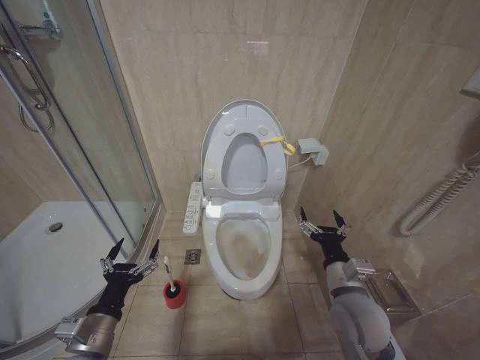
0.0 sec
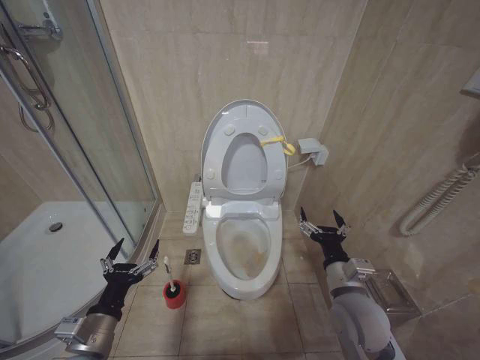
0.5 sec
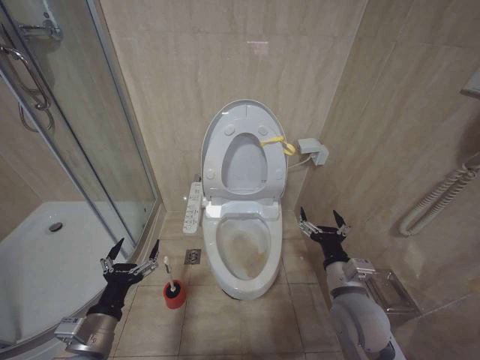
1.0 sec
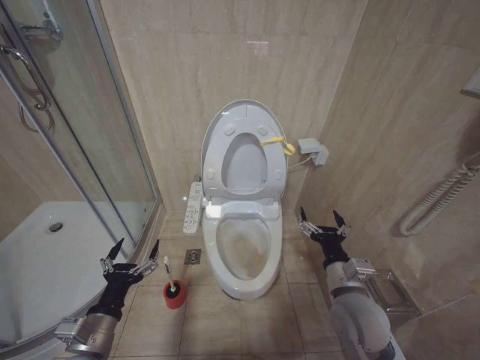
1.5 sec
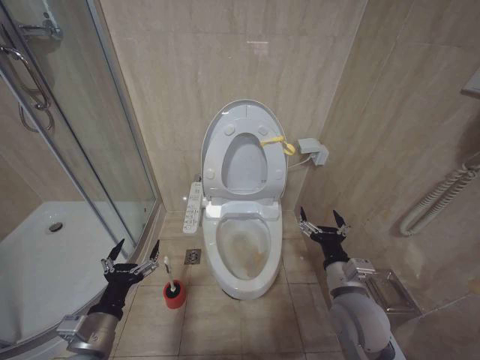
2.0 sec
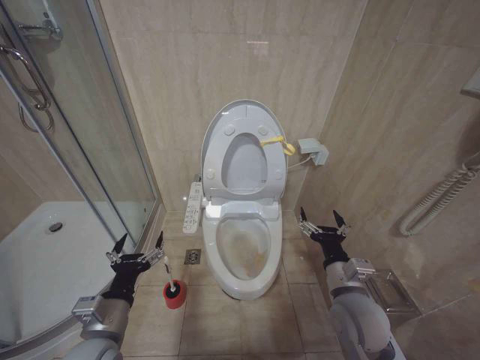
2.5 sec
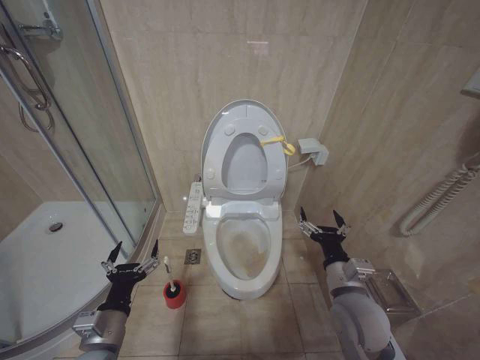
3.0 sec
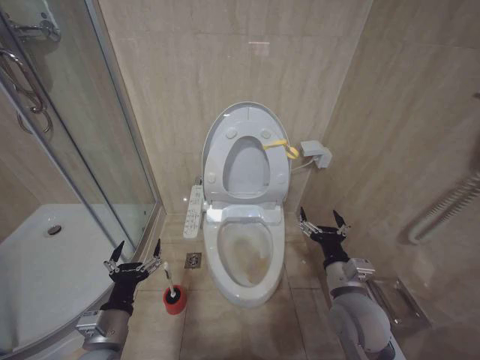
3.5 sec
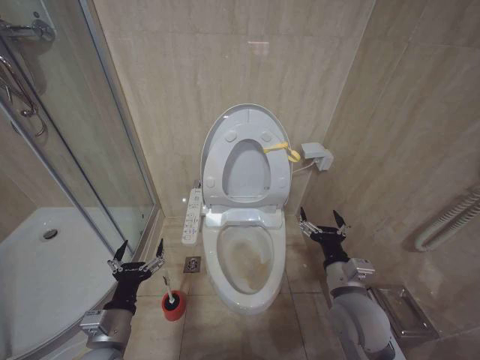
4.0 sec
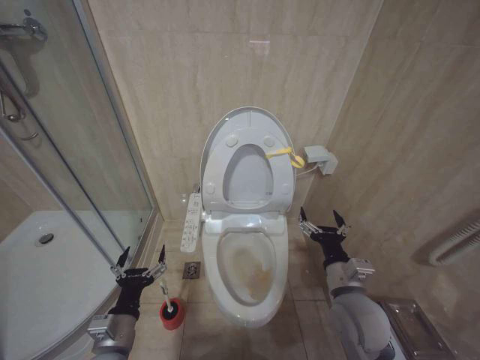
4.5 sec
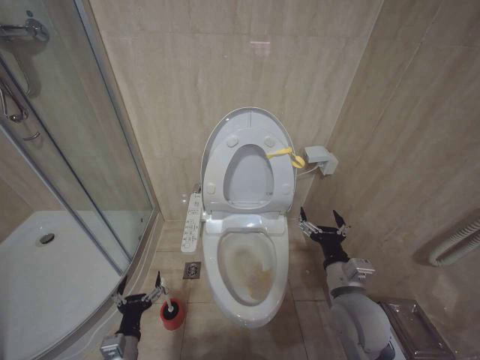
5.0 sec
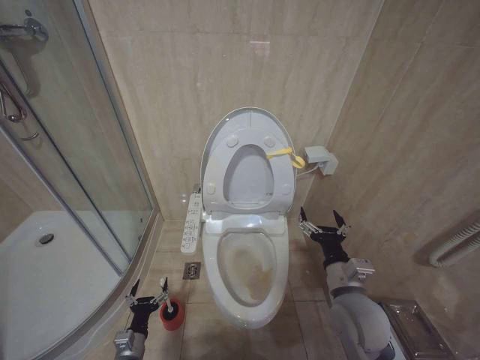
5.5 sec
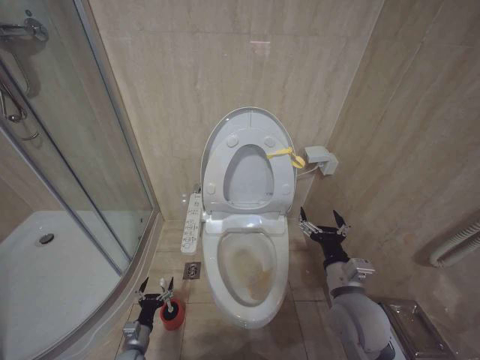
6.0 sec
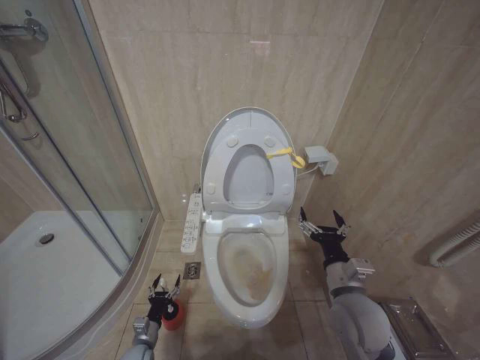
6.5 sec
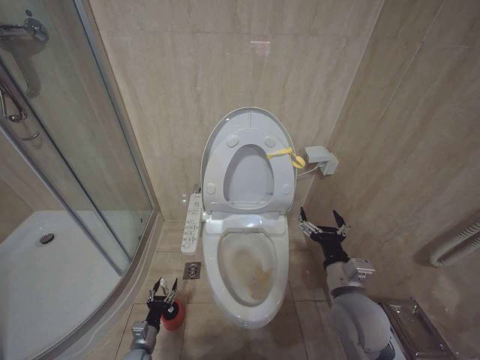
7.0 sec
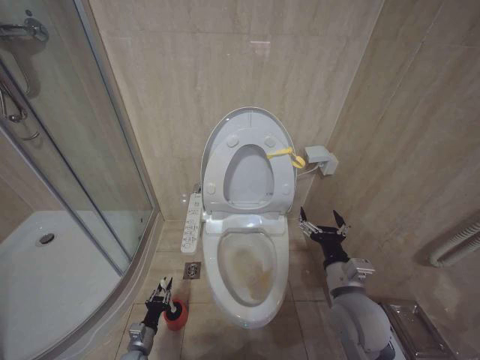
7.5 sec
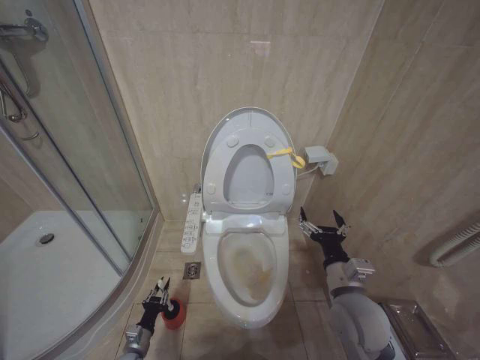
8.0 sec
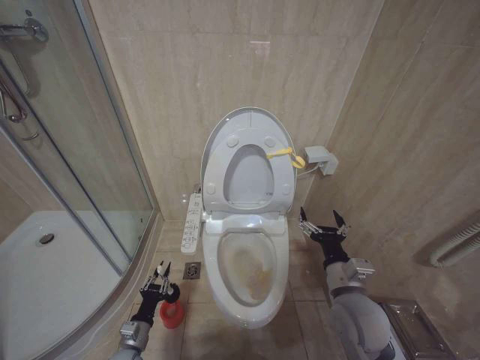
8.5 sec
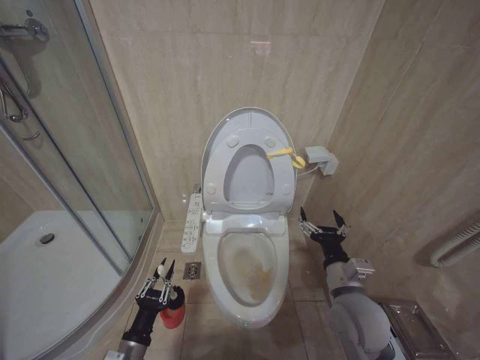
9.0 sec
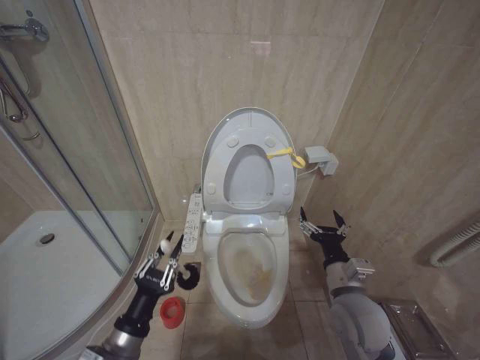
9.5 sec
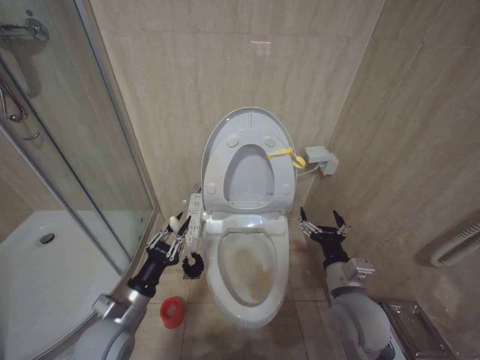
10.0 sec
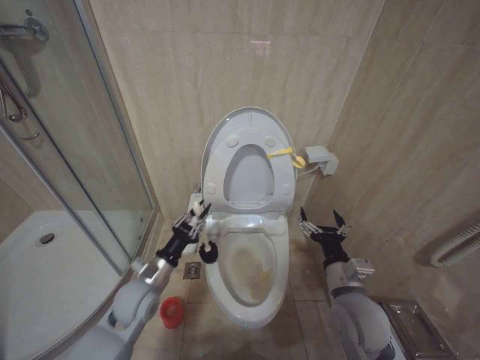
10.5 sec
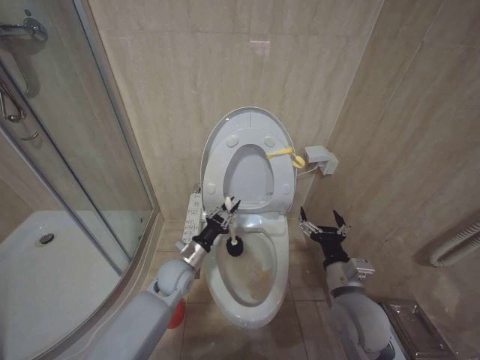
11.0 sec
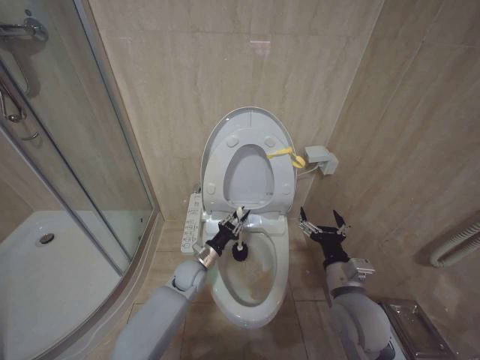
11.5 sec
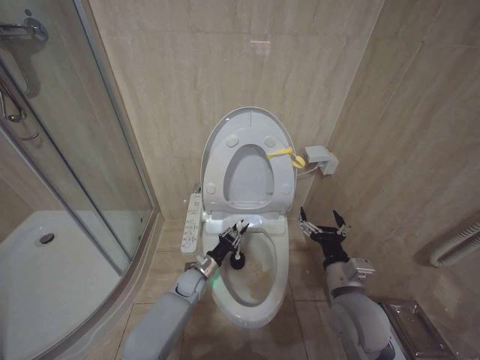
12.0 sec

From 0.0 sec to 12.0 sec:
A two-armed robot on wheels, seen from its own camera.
Task of the whole recording: Open the toilet lid, clean the toilet bowl with a toilet brush, close the toilet lid, and flush.
From 0.0 sec to 2.0 sec: Both grippers stay about where they are.
From 2.0 sec to 4.0 sec: The grippers stay close to where they were, moving slightly.
From 4.0 sec to 6.0 sec: The left gripper travels downward by about 25 cm.
From 8.0 sec to 10.0 sec: The left gripper travels upward by about 30 cm.
From 10.0 sec to 12.0 sec: The left gripper moves forward, downward and to the right, some 30 cm.

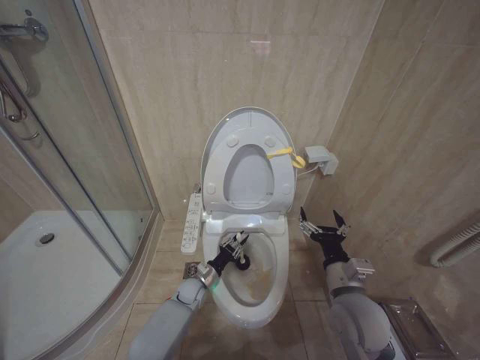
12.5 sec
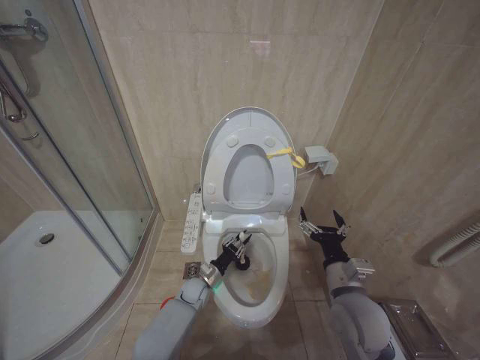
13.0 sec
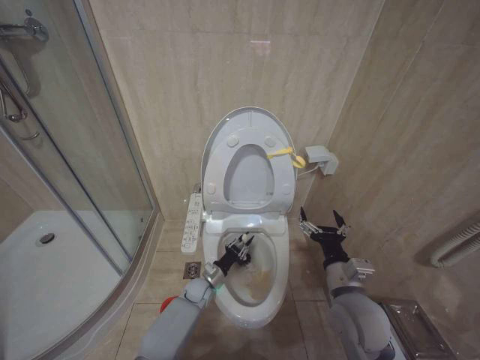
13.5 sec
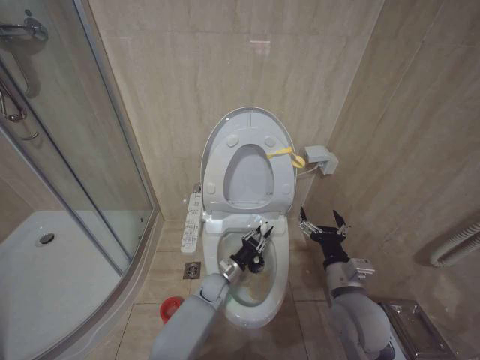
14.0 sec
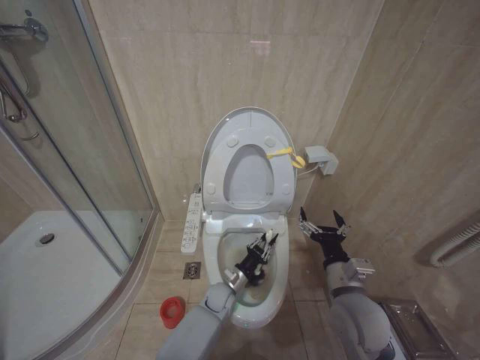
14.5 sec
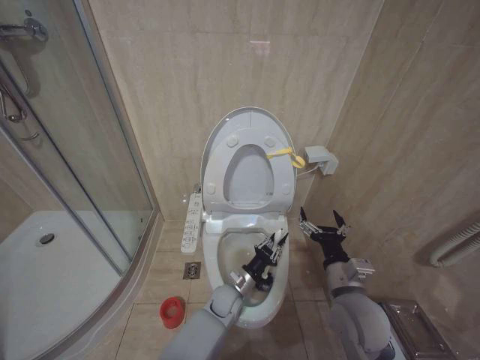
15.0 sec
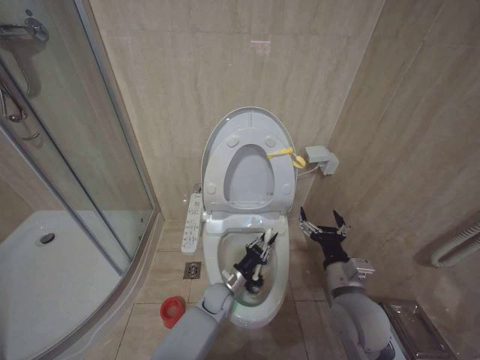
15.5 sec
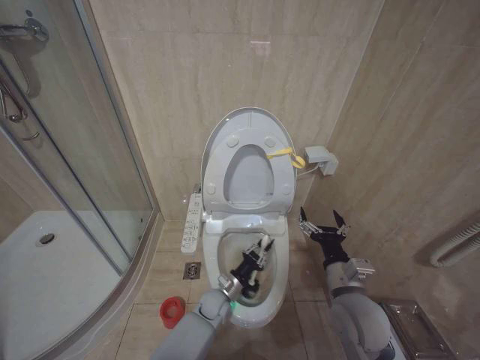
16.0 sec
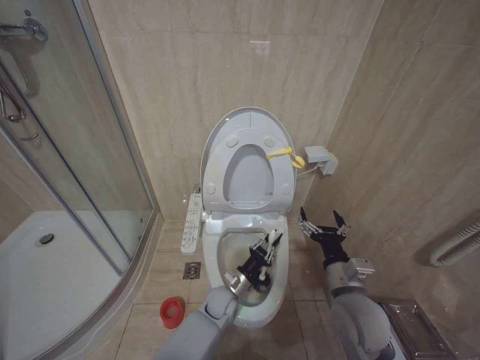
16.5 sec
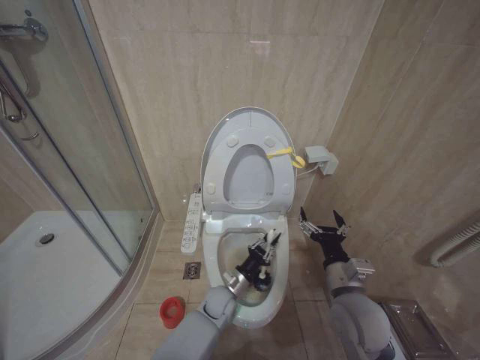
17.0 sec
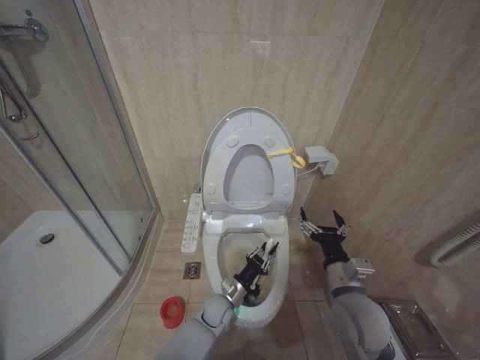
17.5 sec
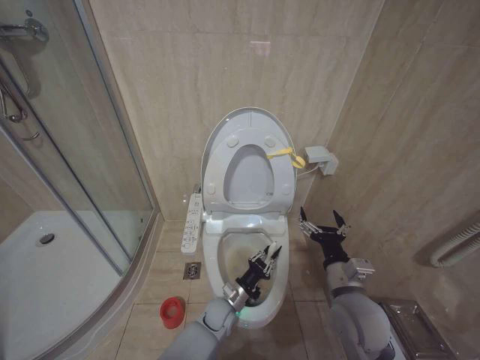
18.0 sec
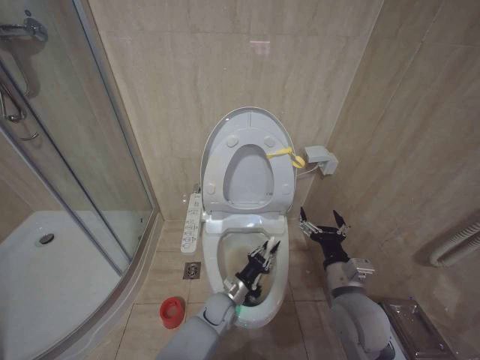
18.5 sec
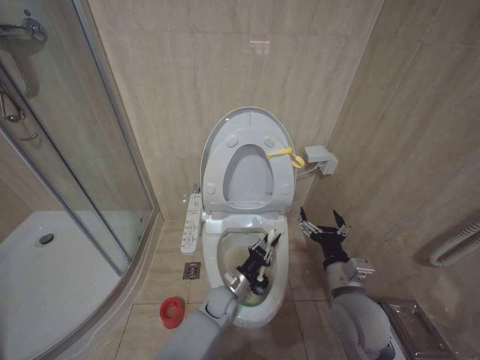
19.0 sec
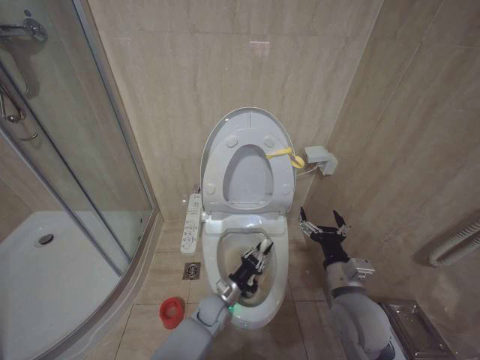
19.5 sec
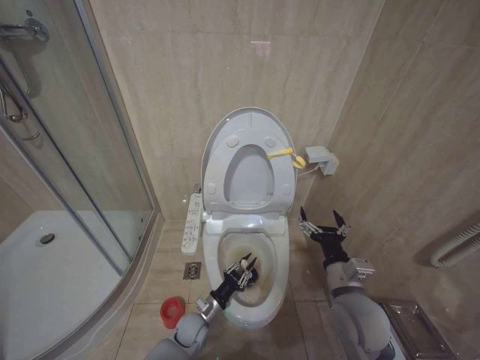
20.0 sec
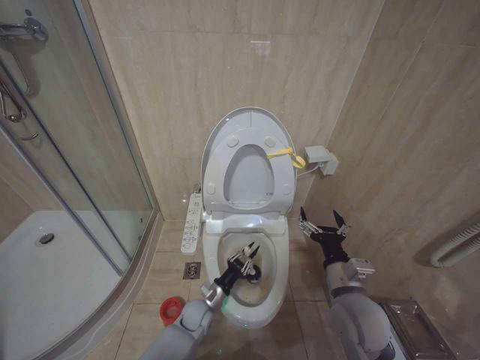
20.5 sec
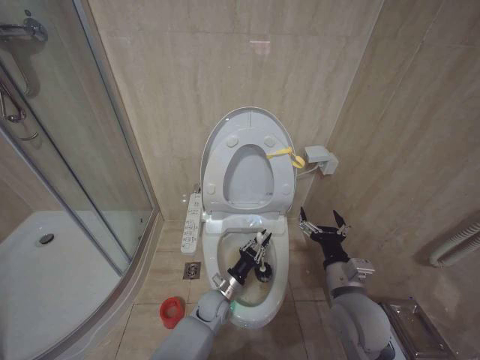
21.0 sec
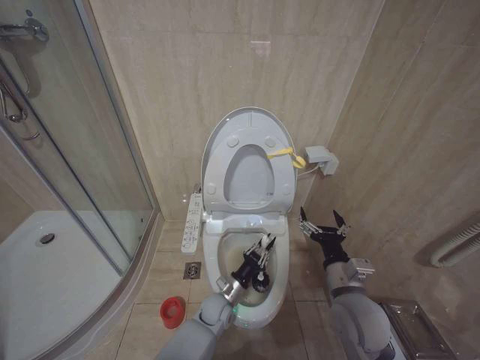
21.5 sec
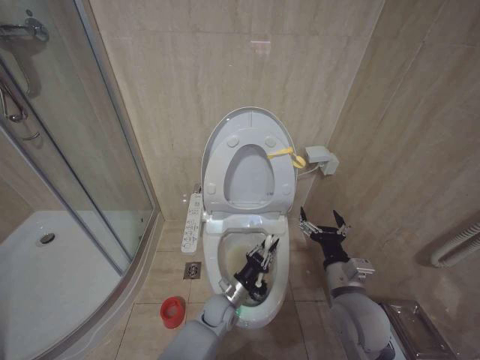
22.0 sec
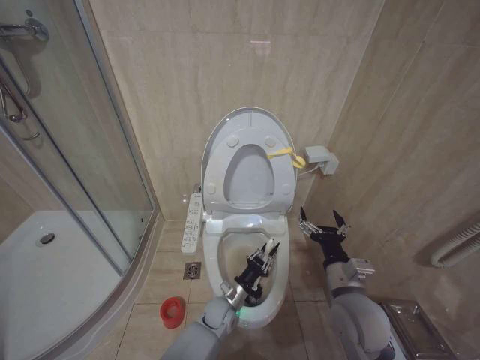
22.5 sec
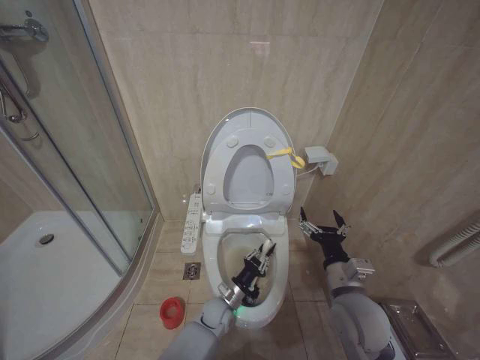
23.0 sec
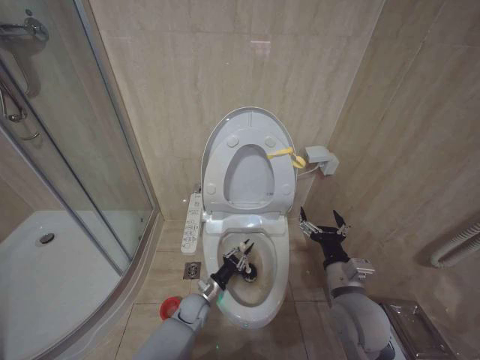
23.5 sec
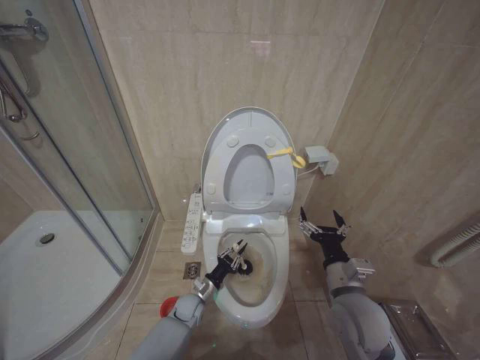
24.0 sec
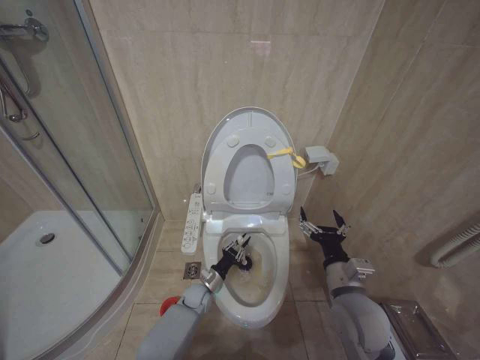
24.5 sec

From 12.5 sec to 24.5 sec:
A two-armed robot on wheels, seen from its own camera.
Task of the whole recording: Open the toilet lid, clean the toilet bowl with a toilet brush, close the toilet lid, and flush.
From 12.5 sec to 14.5 sec: The left gripper goes some 10 cm to the right.
From 16.5 sec to 18.5 sec: The grippers move only a little.
From 18.5 sec to 20.5 sec: The left gripper travels to the left by some 10 cm.
From 20.5 sec to 22.5 sec: The left gripper heads to the right, covering approximately 10 cm.
From 22.5 sec to 24.5 sec: The left gripper shifts about 10 cm to the left and forward.

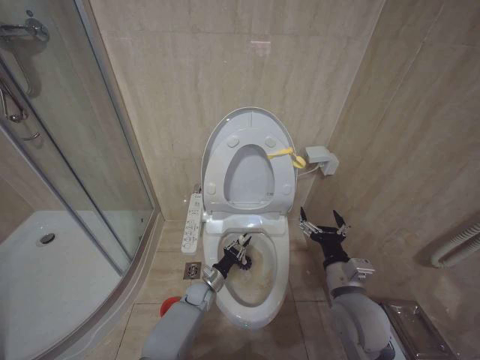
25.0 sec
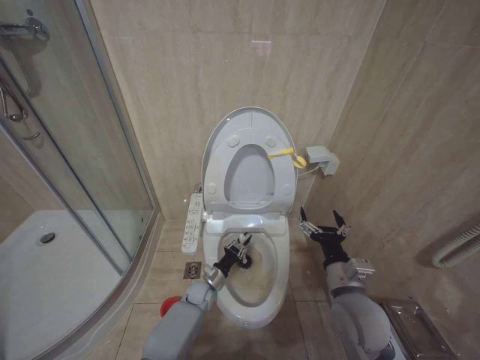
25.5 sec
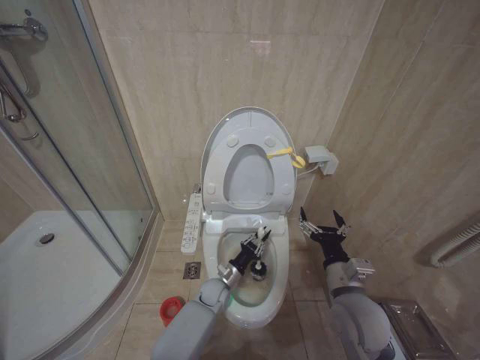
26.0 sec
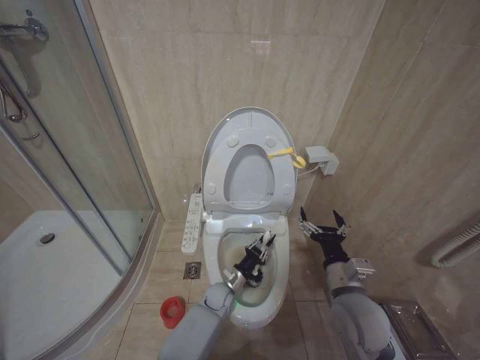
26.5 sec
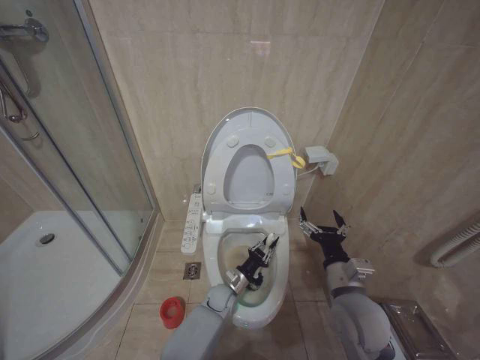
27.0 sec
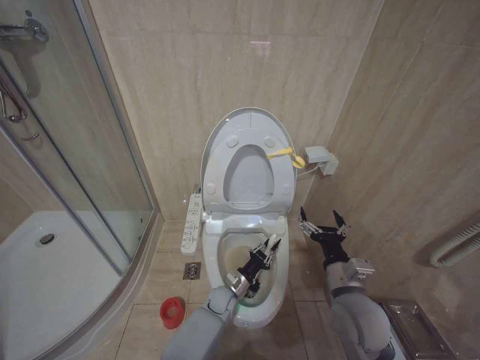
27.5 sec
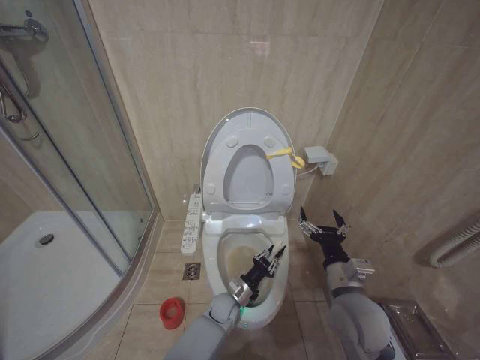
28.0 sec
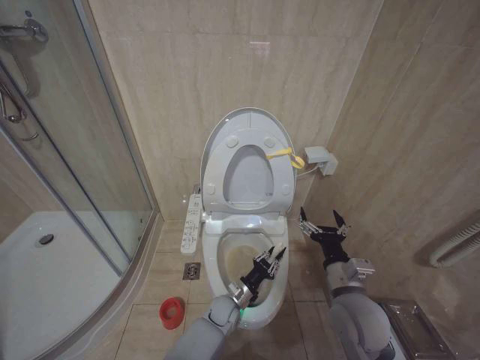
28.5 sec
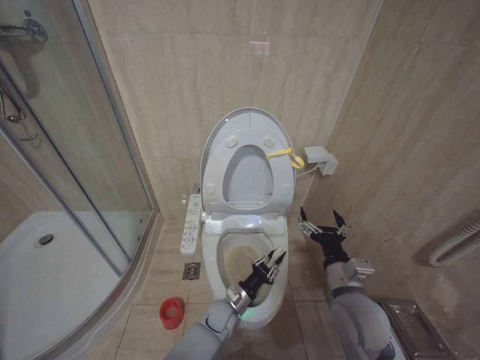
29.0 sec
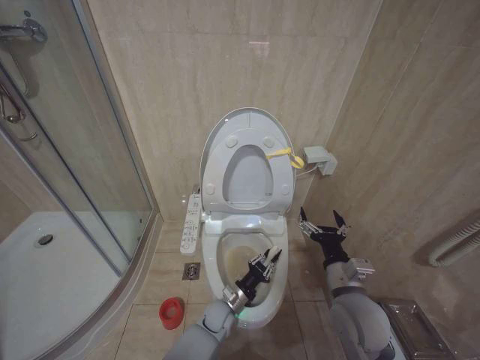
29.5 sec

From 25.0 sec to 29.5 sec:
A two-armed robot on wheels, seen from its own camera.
Task of the whole recording: Open the toilet lid, clean the toilet bowl with a toilet brush, close the toilet lid, and flush.
From 25.0 sec to 27.0 sec: The left gripper is displaced to the right by about 10 cm.
From 27.0 sec to 29.5 sec: The left gripper shifts about 5 cm backward.
